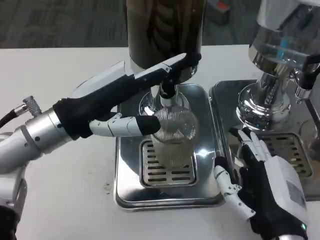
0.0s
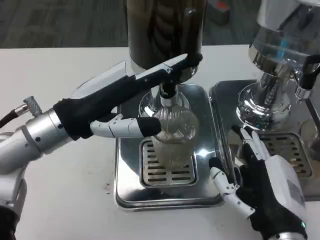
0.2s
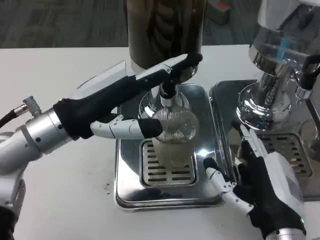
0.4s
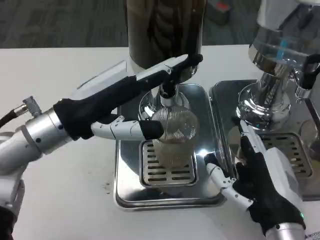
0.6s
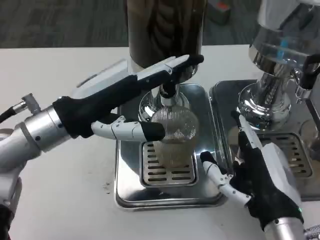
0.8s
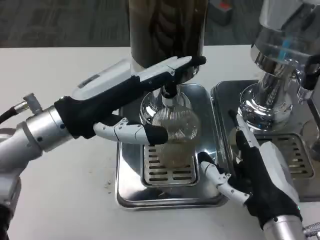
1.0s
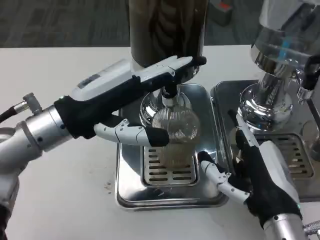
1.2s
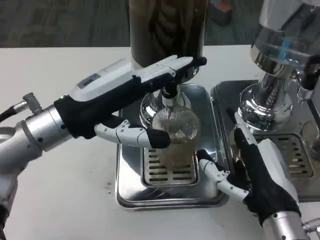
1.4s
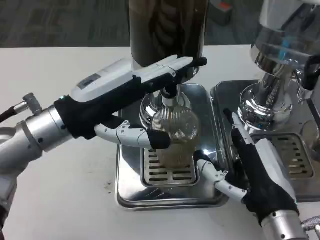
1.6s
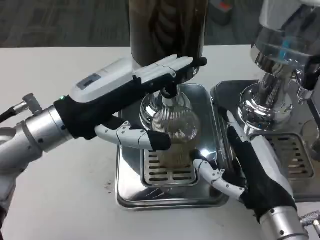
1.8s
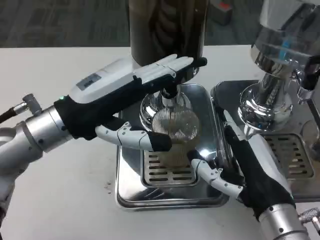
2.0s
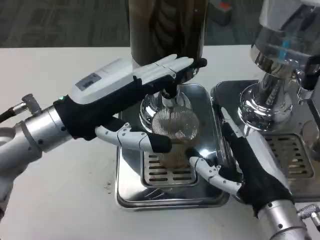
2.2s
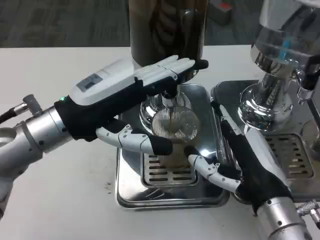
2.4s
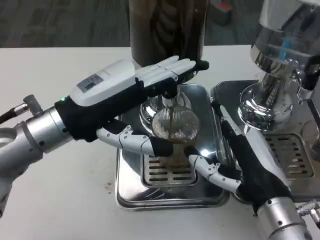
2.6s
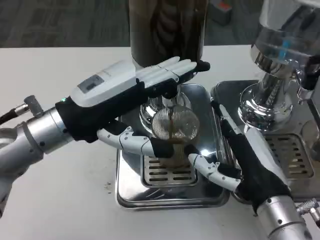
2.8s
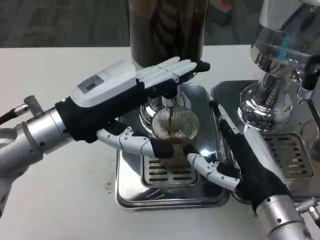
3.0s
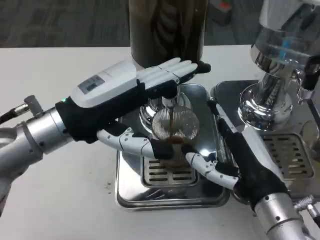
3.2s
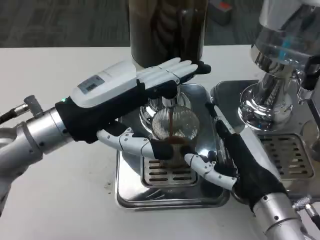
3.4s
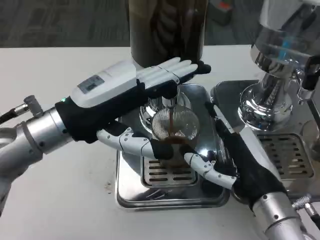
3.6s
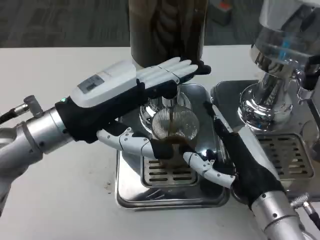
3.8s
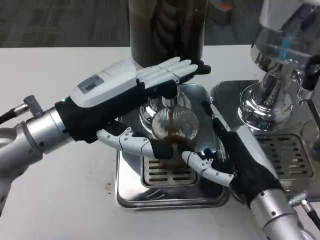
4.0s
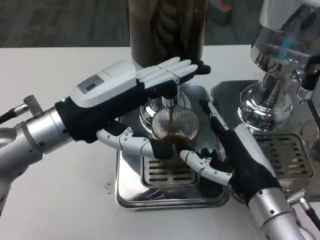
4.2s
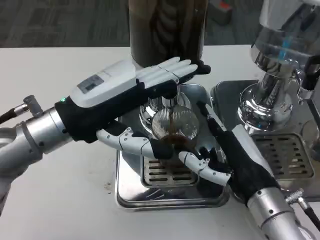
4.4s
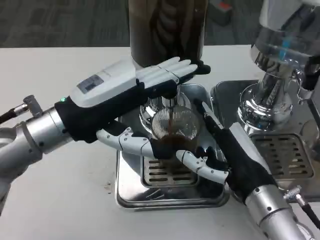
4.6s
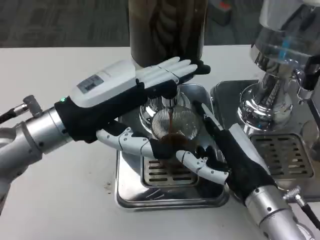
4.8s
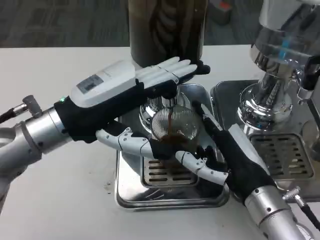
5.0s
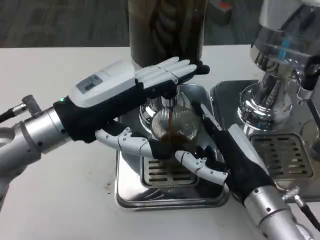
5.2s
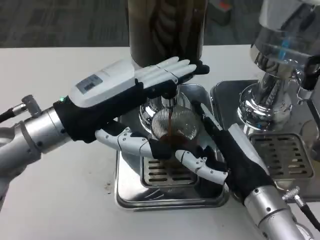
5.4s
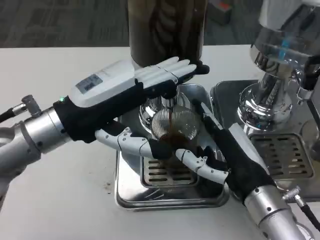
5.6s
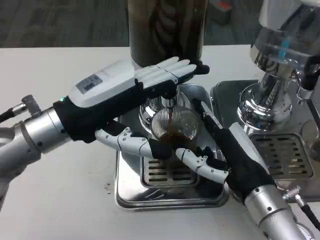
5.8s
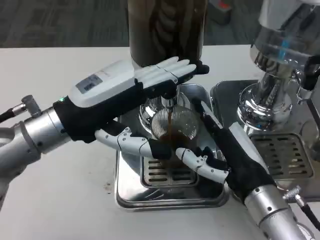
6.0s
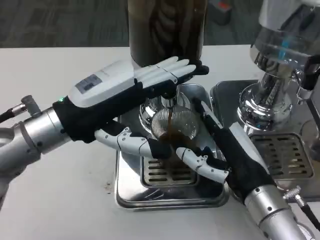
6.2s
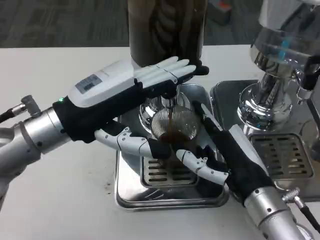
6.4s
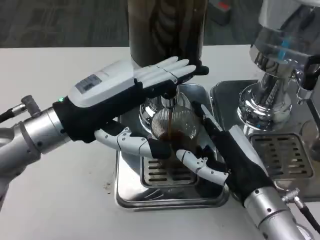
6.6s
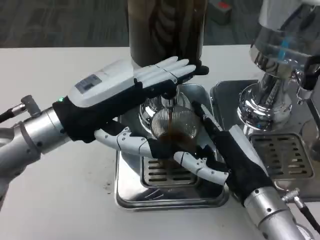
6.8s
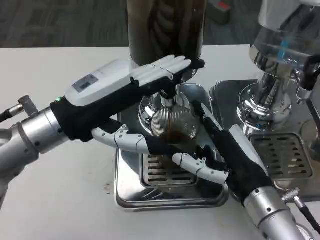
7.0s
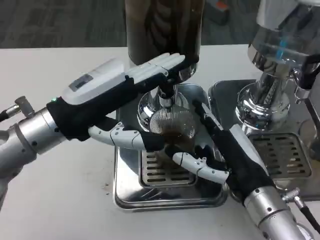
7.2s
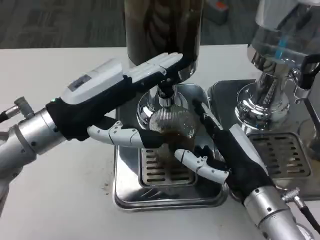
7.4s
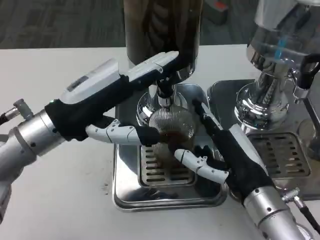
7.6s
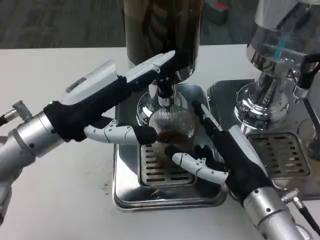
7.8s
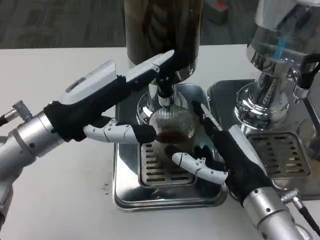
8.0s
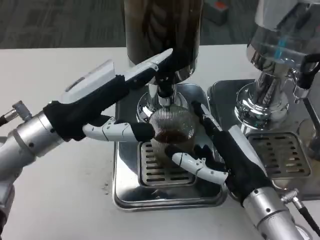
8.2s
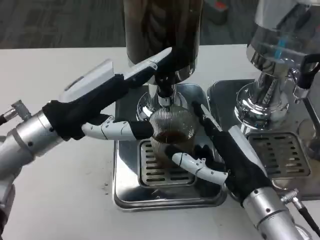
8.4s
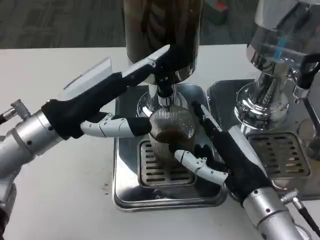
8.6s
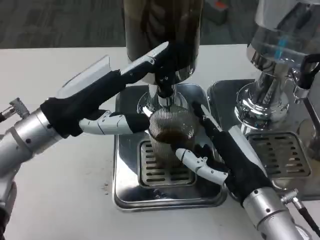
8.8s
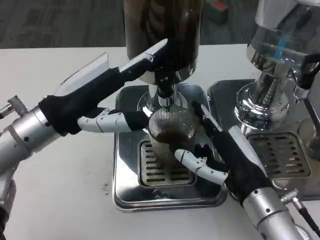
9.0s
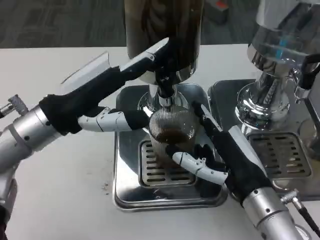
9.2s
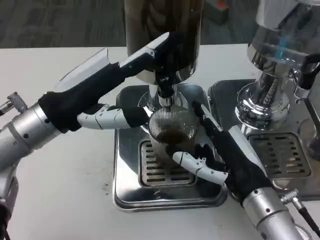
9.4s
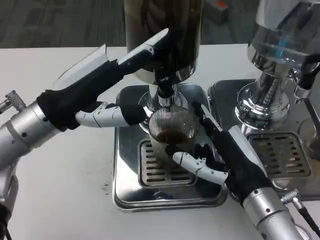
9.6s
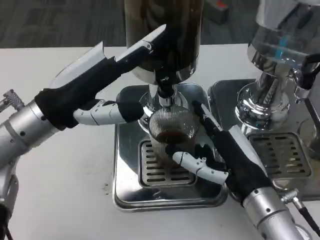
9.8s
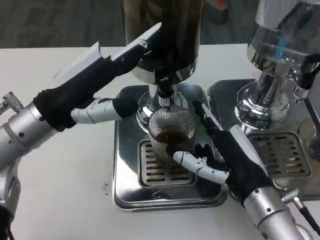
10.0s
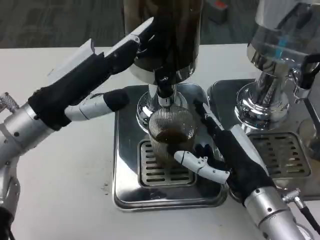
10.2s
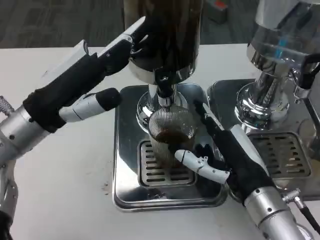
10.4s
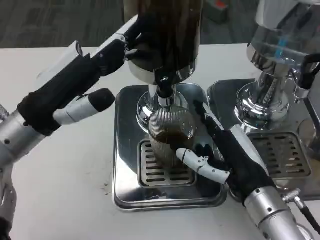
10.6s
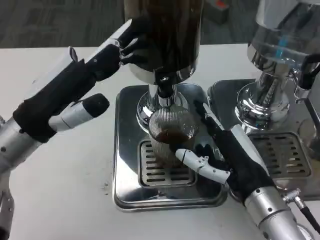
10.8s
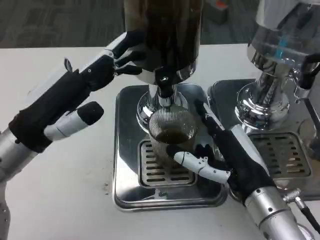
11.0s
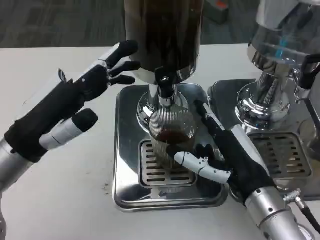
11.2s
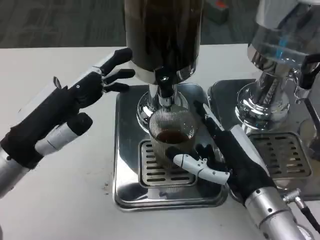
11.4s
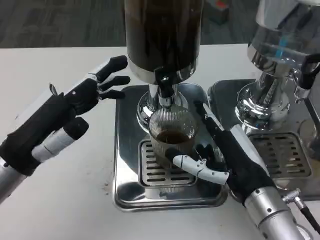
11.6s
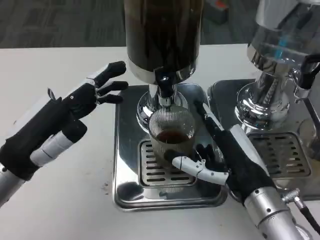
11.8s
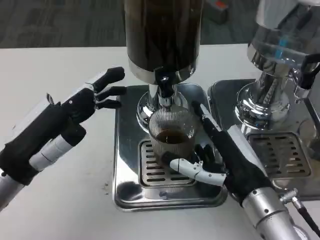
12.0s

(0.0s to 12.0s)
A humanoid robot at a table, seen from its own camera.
Task of the whole recording: Grasp the cup under the faucet to collect the drink, then remove the cup.
1.6s - 4.4s: The hands stay close to where they were, moving slightly.
4.4s - 6.0s: Both hands stay about where they are.
7.6s - 10.4s: The hands move only a little.
10.4s - 12.0s: The left hand moves backward and downward, some 10 cm.

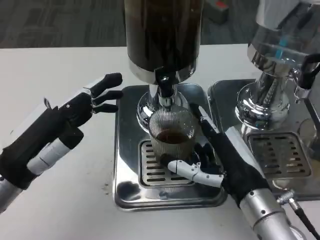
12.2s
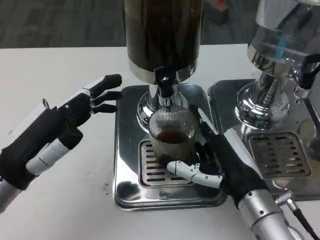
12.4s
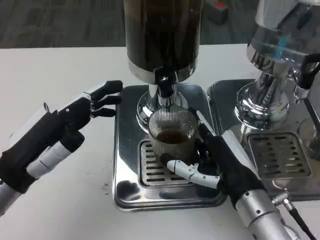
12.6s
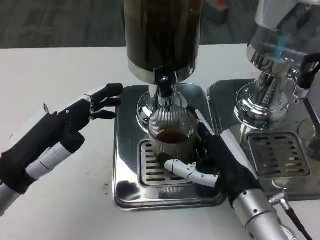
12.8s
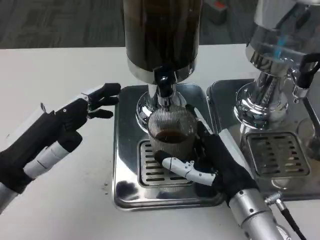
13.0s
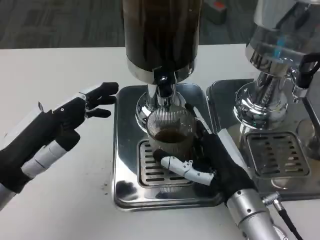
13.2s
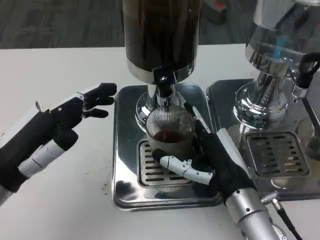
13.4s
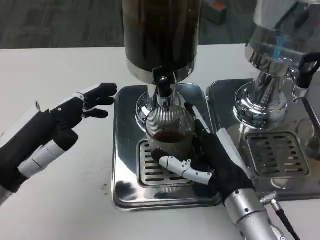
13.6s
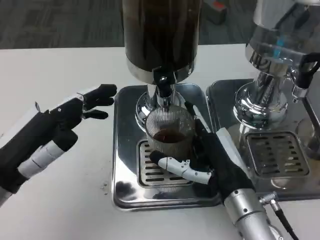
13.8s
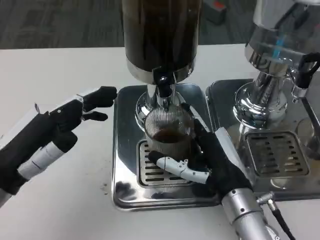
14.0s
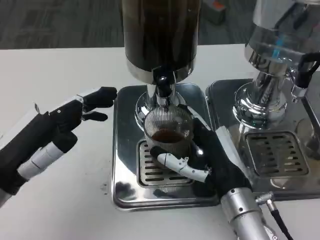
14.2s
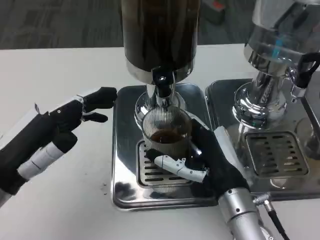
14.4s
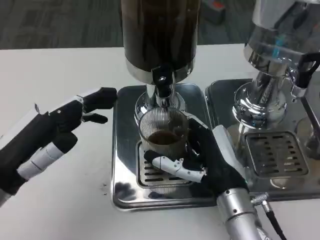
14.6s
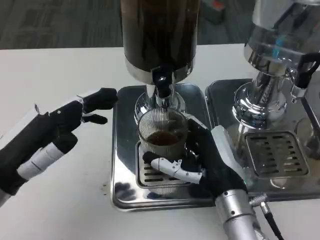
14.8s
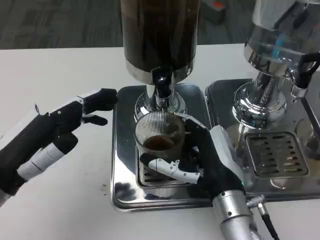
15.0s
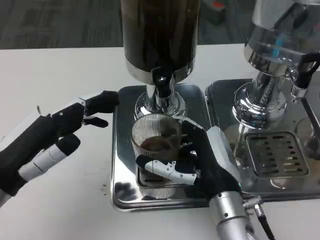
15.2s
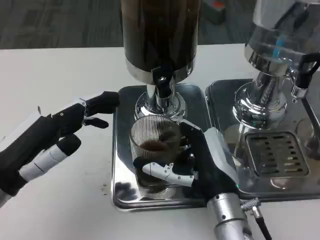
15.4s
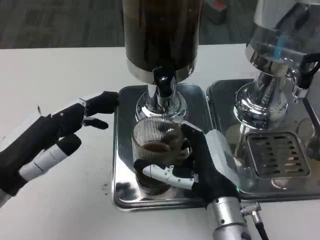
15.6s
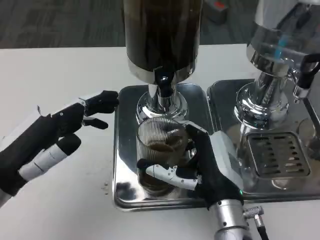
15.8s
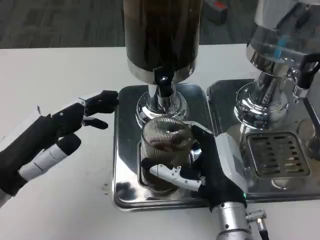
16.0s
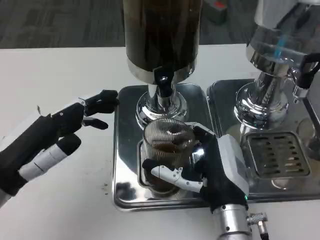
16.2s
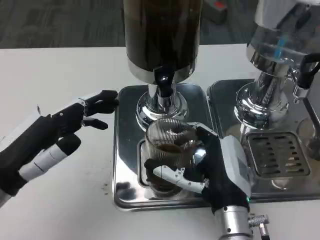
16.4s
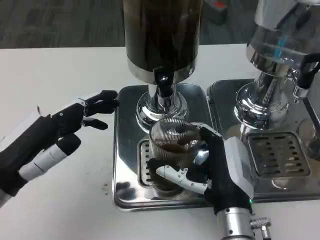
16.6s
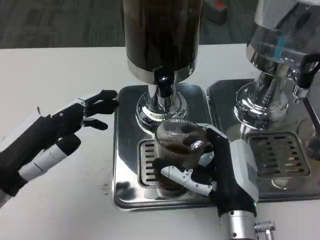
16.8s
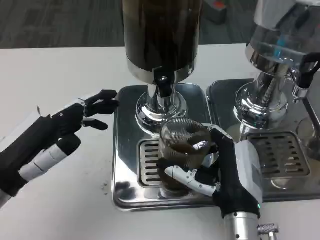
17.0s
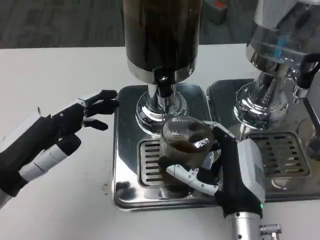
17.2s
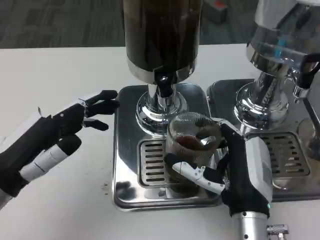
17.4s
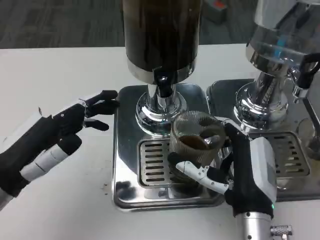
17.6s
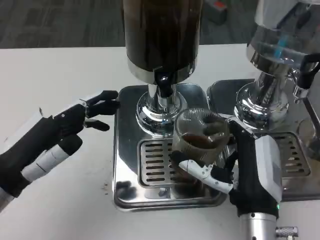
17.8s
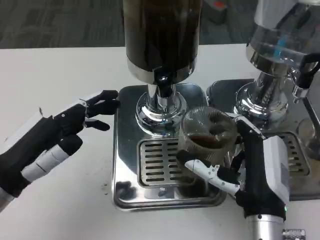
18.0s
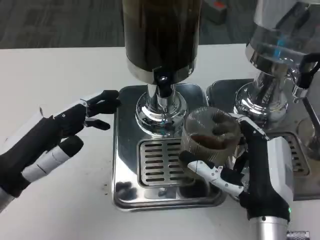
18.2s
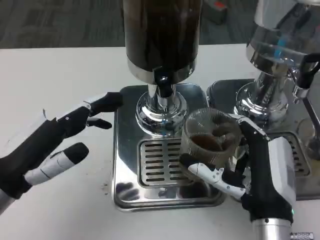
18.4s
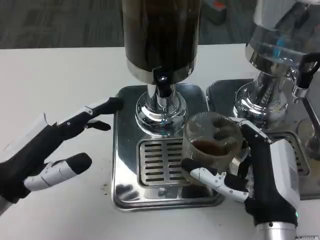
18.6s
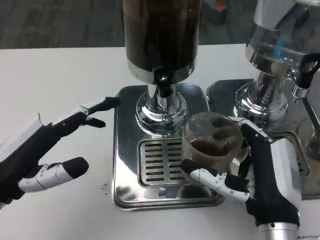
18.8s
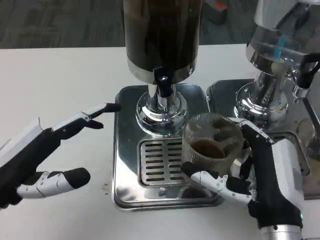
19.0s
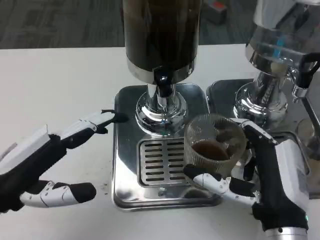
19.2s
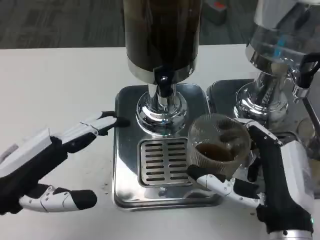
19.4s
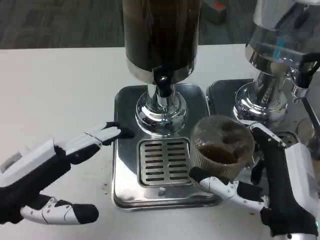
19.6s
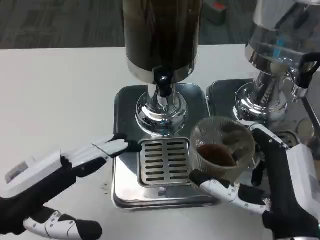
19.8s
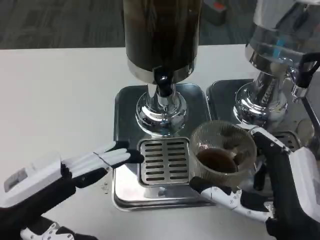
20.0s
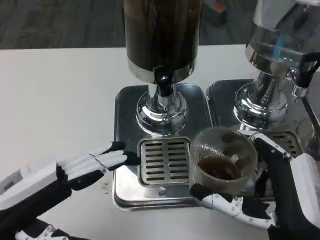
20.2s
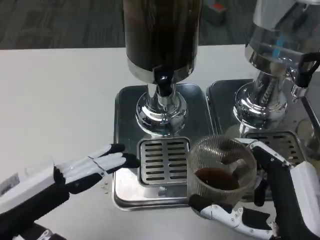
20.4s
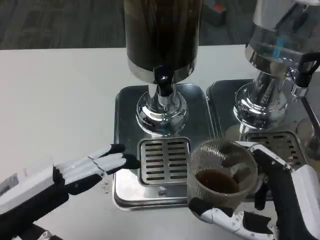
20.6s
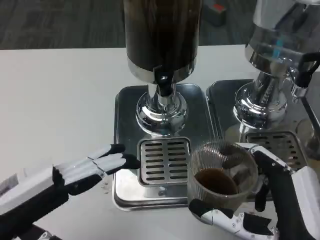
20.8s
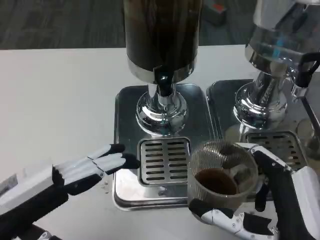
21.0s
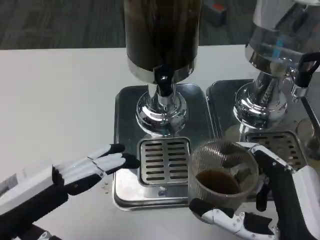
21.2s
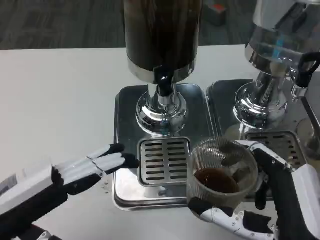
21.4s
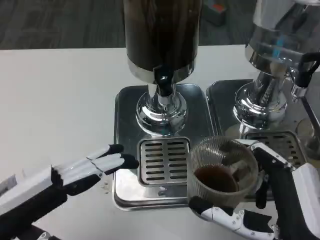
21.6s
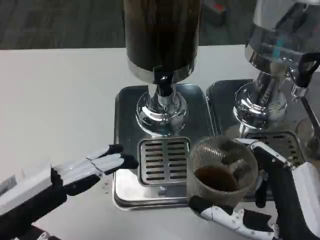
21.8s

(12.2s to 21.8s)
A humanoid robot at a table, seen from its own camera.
Task of the whole recording: Grasp the cup under the faucet to collect the drink, then remove the cup.
12.2s - 15.4s: There are only small adjustments of the hands.
15.4s - 17.0s: There are only small adjustments of the hands.
18.6s - 20.2s: The right hand changes place by roughly 5 cm.
20.2s - 21.8s: The hands move only a little.

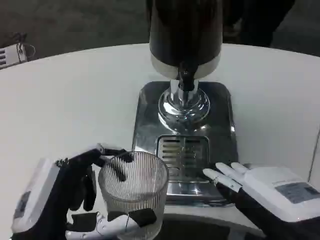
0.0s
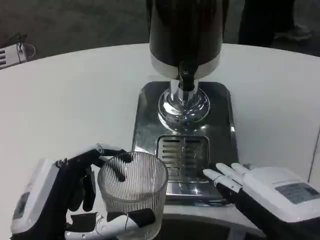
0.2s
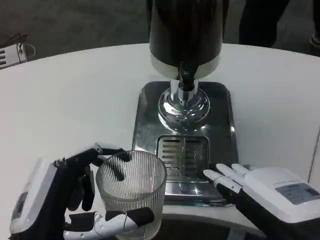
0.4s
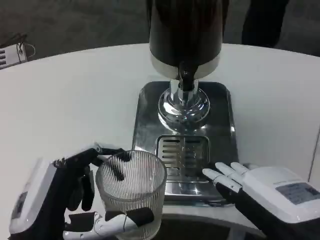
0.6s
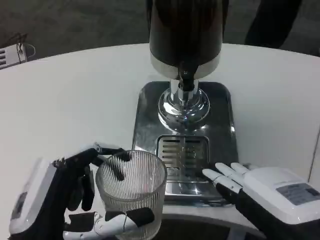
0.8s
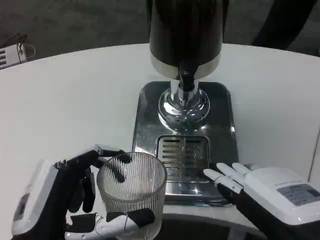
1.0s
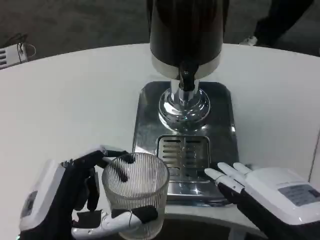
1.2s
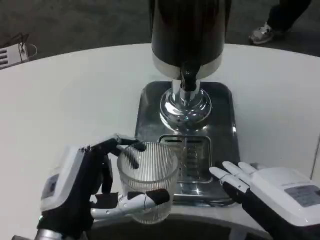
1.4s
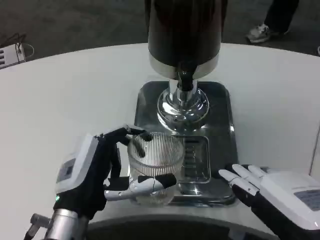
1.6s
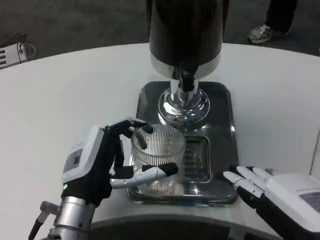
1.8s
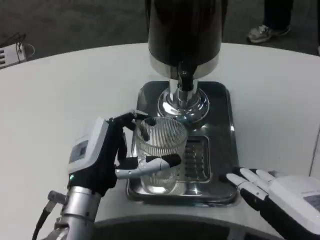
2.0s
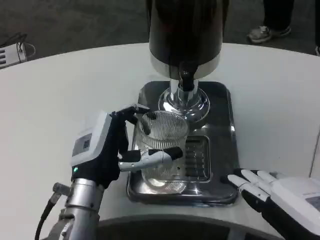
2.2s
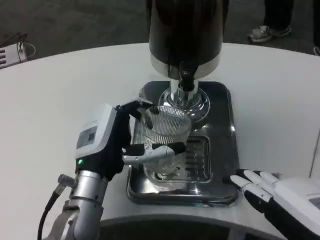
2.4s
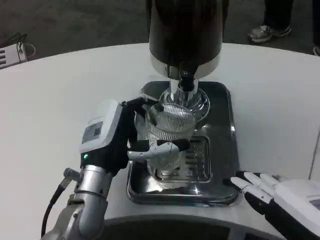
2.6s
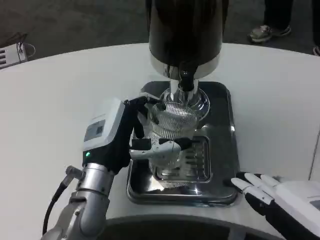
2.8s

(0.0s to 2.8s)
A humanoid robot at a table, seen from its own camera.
Task of the whole recording: Grasp the cup under the faucet to collect the drink, then remove the cup.
0.0s - 1.4s: The left hand shifts by approximately 5 cm.
1.4s - 2.8s: The left hand moves forward, about 10 cm.
